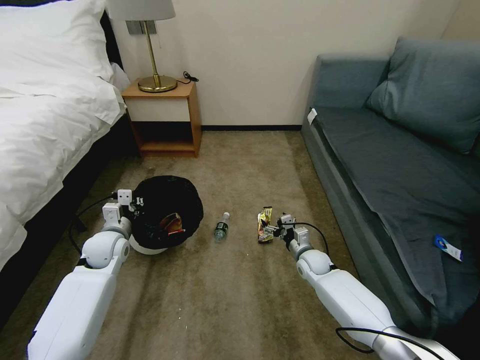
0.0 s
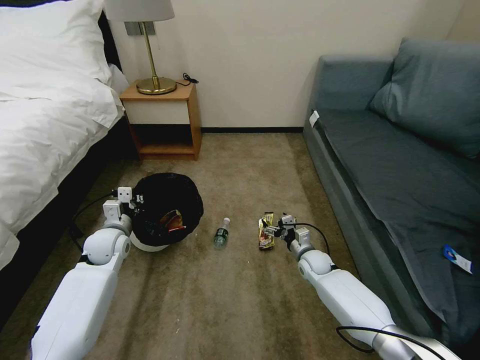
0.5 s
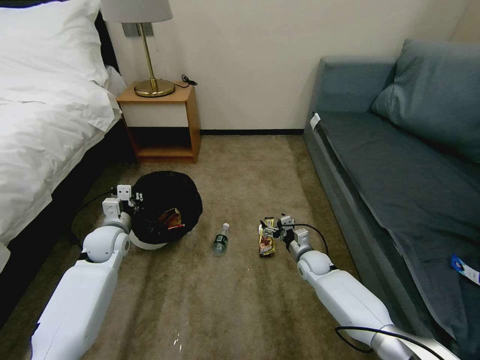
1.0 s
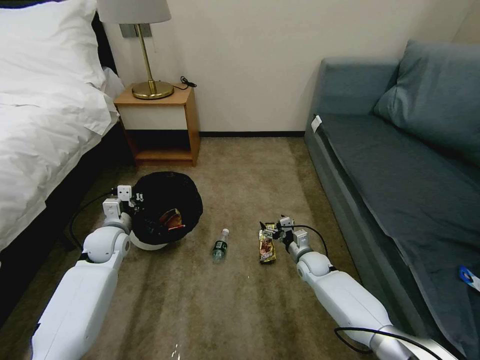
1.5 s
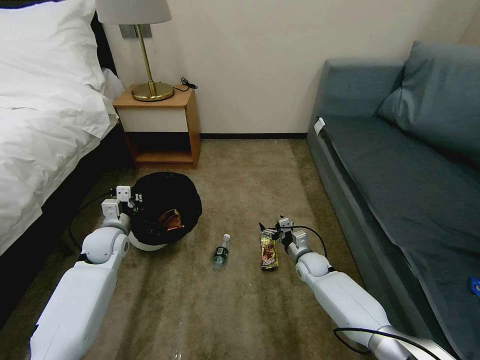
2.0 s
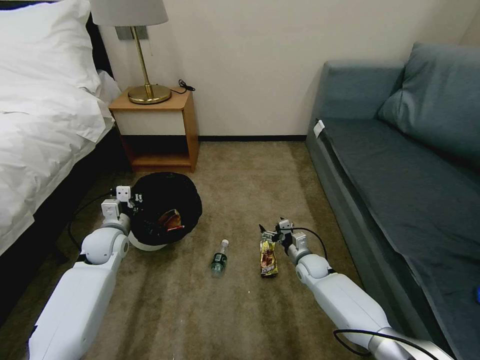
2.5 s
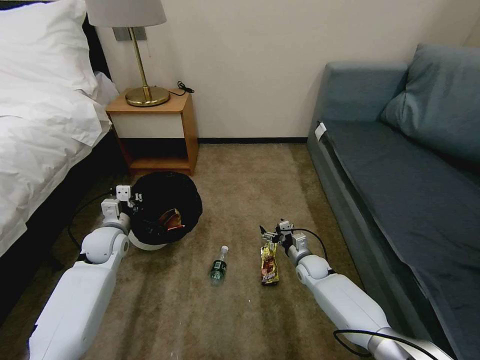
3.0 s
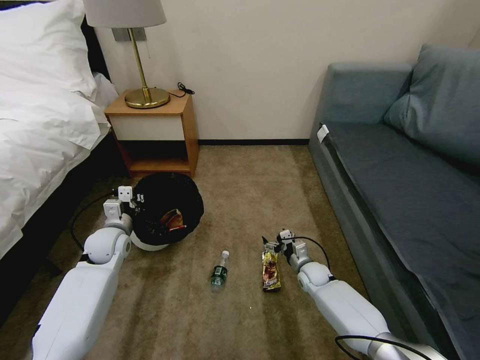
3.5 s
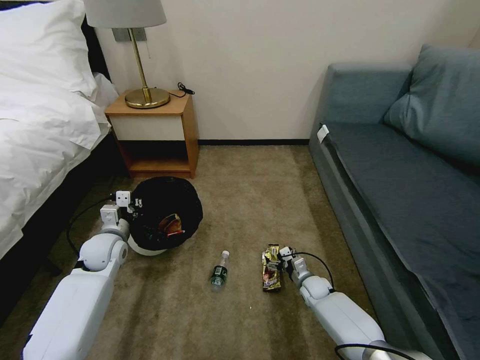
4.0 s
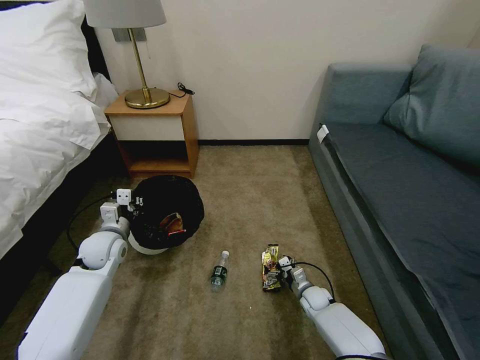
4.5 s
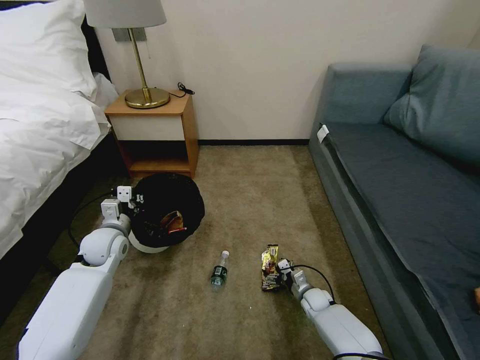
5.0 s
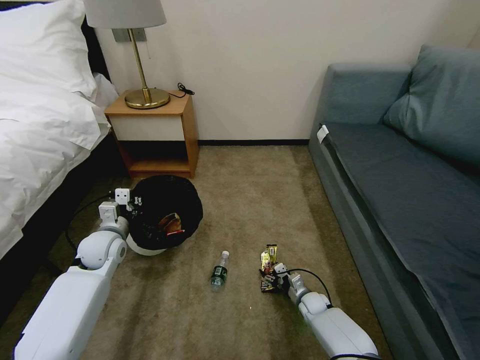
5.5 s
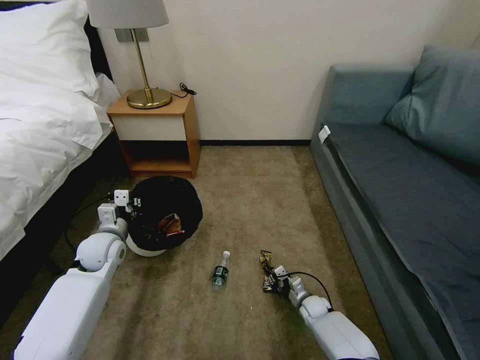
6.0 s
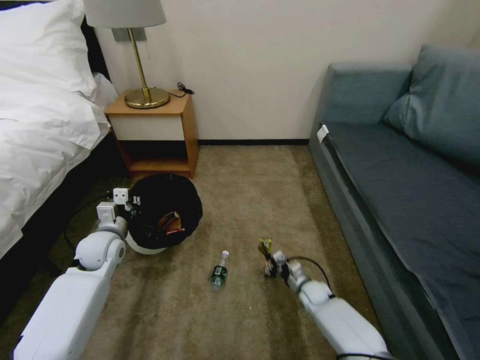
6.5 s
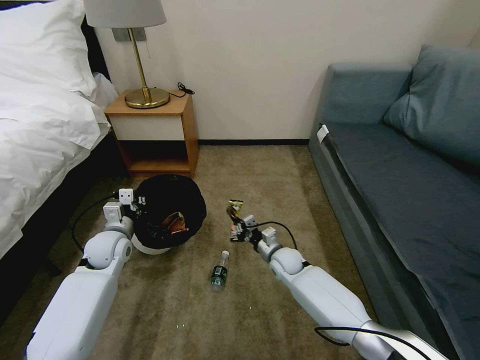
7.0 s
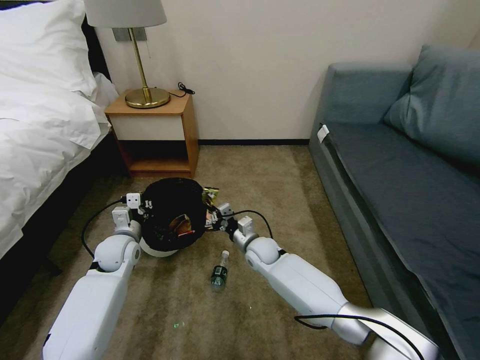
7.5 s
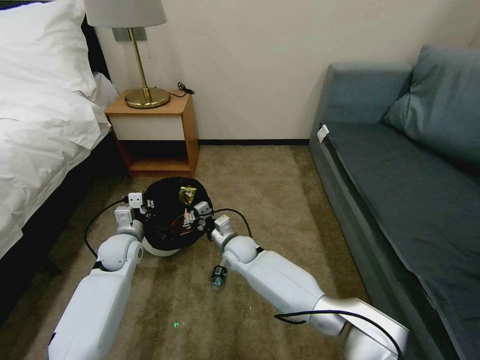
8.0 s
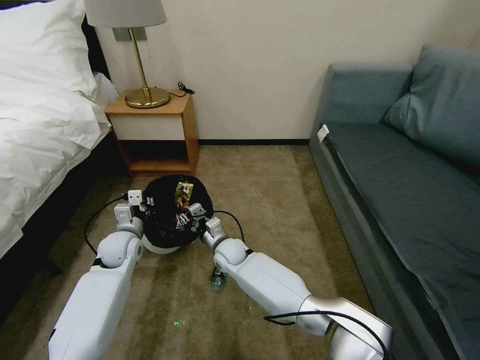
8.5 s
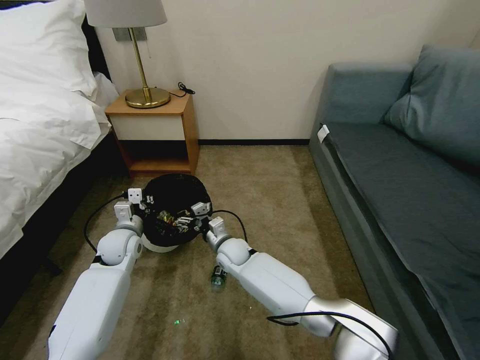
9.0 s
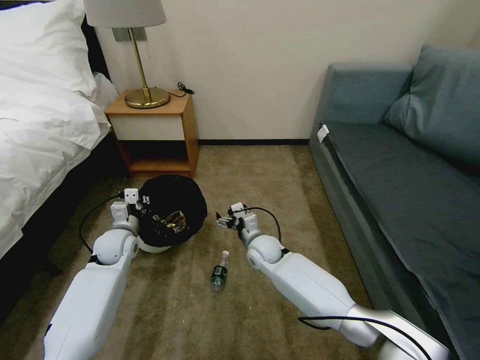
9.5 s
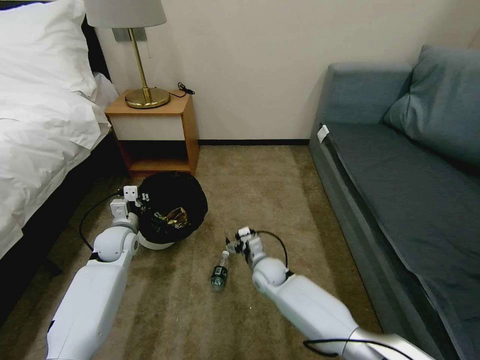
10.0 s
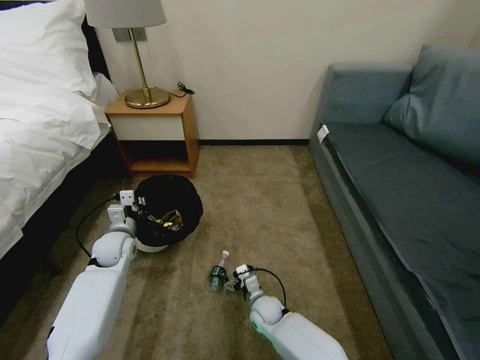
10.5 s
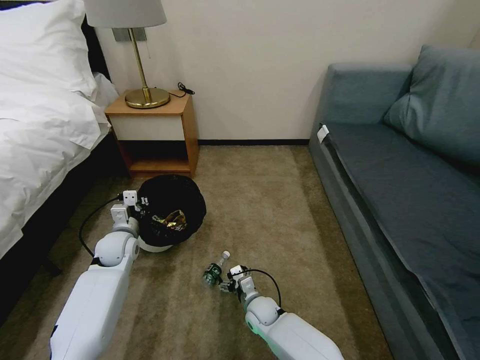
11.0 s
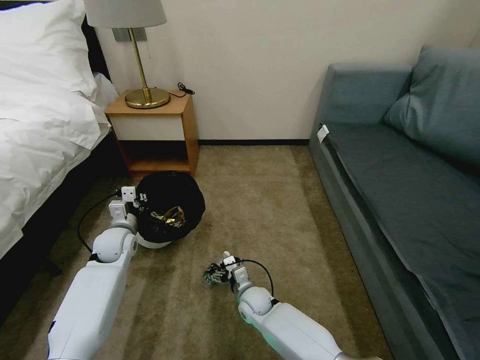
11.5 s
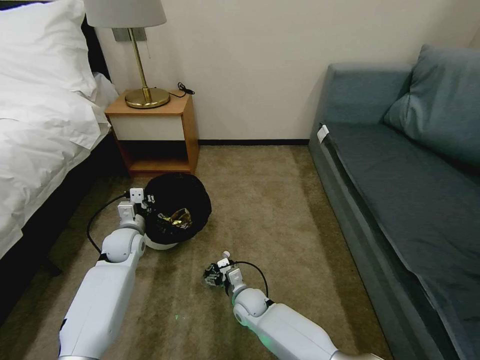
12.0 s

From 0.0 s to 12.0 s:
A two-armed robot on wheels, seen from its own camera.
Task of the whole recording: Pick up the trash bin, then pick up the garbage on the floor and place it into the trash bin.
From 0.0 s to 2.0 s: The grippers make only small movements.
From 2.0 s to 4.0 s: The right gripper shifts approximately 10 cm downward.
From 4.0 s to 6.0 s: The right gripper shifts by about 5 cm, and closes up.
From 6.0 s to 8.0 s: The right gripper moves to the left and upward, roughly 35 cm.
From 8.0 s to 10.0 s: The right gripper shifts some 10 cm to the right, and opens its fingers.
From 10.0 s to 12.0 s: The right gripper goes about 10 cm backward, downward and to the left.

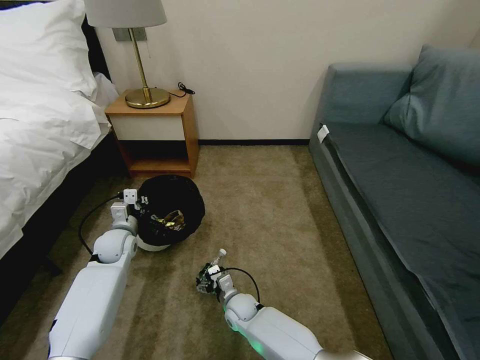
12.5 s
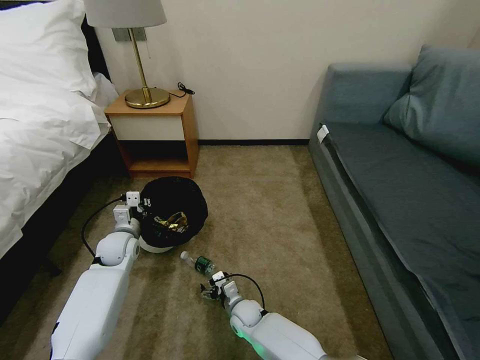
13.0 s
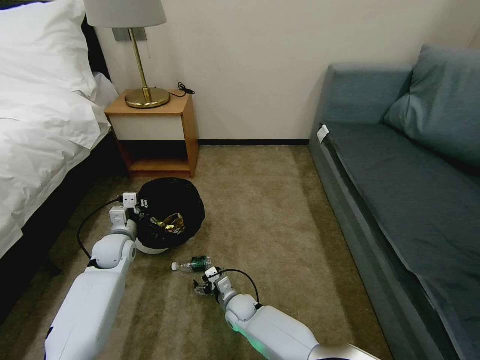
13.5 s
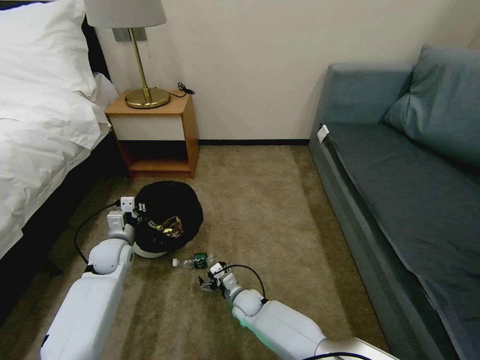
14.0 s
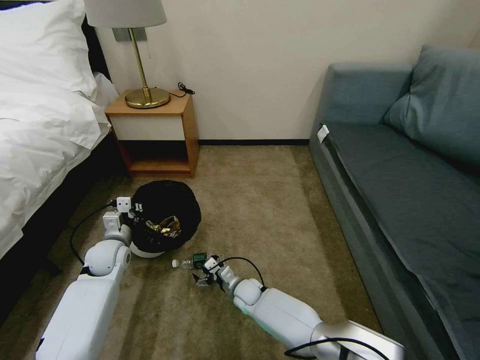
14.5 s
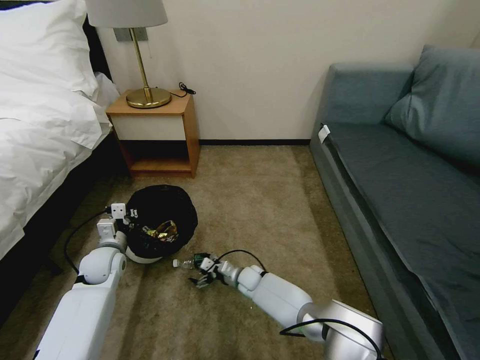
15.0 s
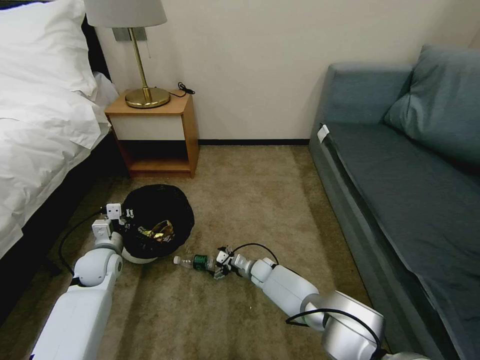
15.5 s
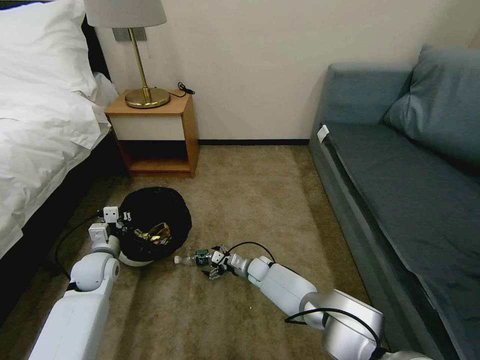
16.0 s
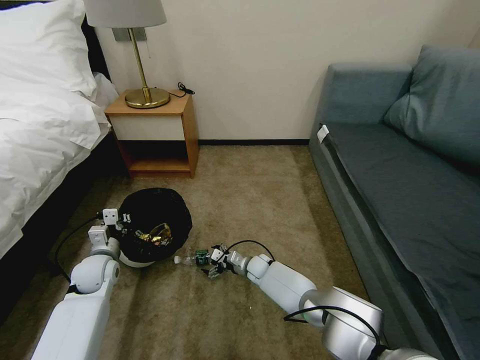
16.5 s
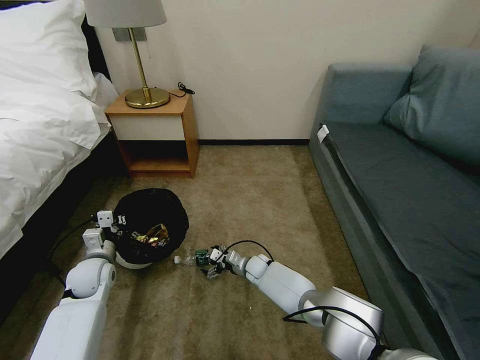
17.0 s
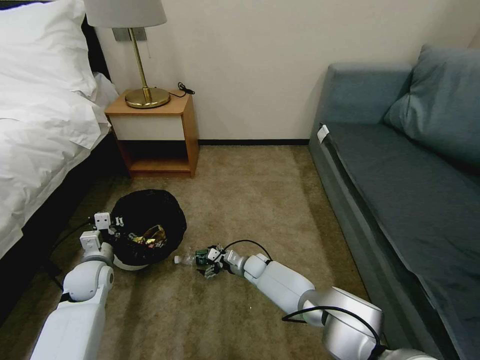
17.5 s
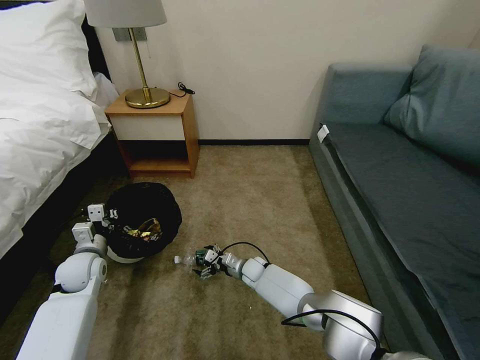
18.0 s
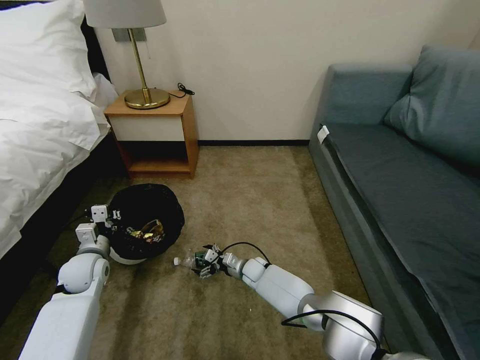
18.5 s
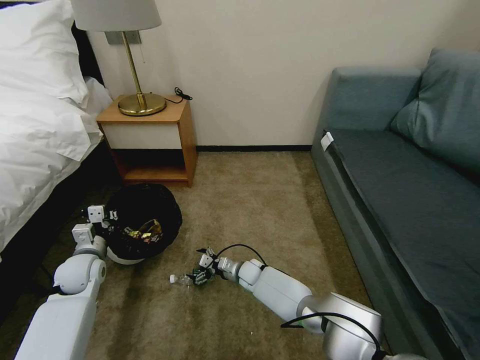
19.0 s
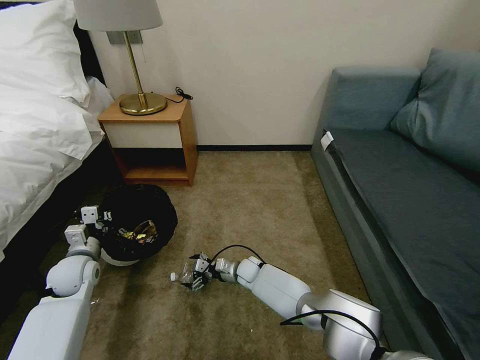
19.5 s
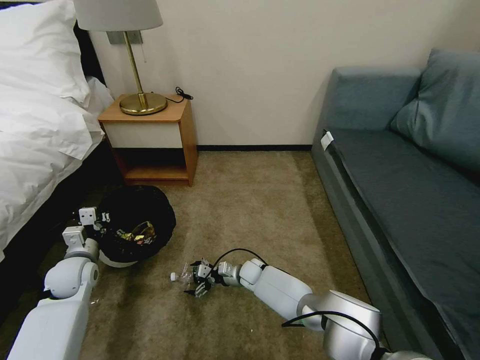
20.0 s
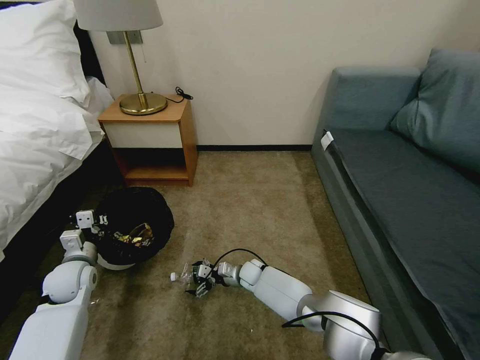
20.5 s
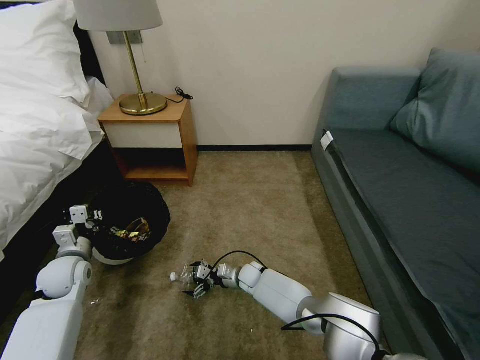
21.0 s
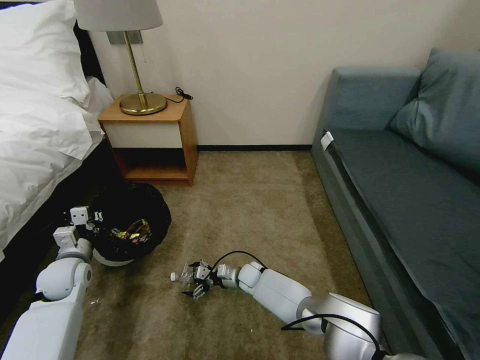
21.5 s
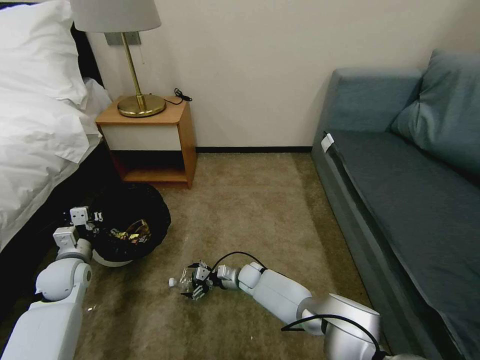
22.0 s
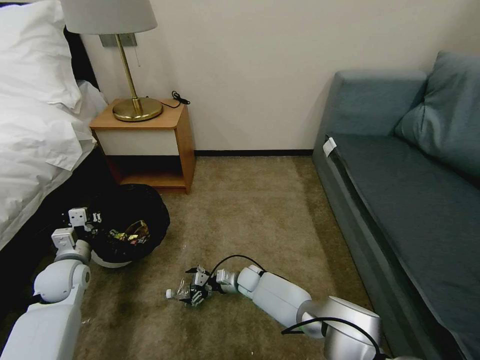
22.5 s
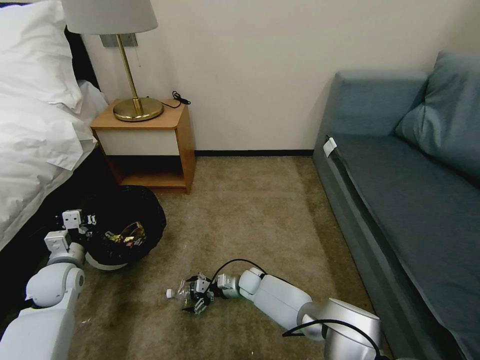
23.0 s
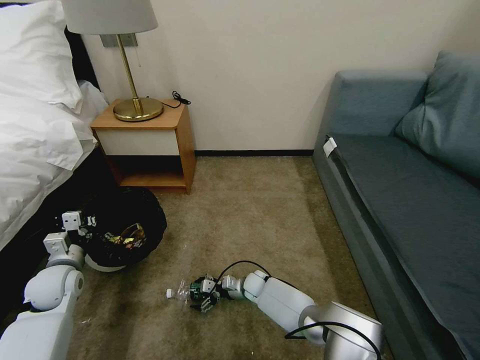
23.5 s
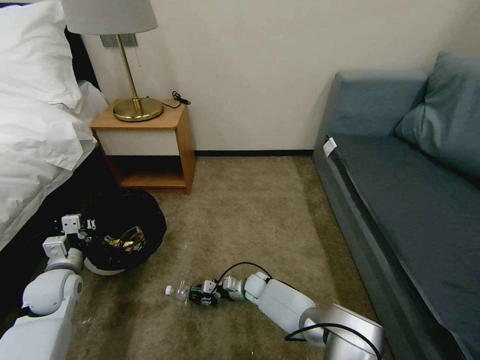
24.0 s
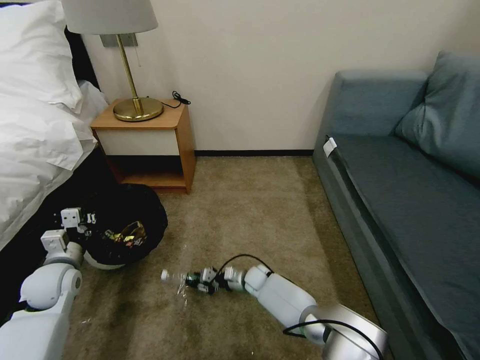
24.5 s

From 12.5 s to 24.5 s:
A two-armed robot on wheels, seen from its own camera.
Task of the whole recording: Pick up the trash bin, then pick up the garbage on the floor and place it into the trash bin.
From 12.5 s to 14.5 s: The right gripper moves roughly 5 cm.
From 14.5 s to 16.5 s: The right gripper moves forward, roughly 10 cm.
From 16.5 s to 20.5 s: There are only small adjustments of the grippers.
From 20.5 s to 22.5 s: There are only small adjustments of the grippers.
From 22.5 s to 24.5 s: The right gripper closes its fingers.

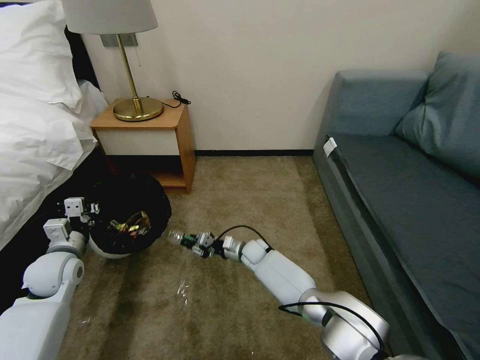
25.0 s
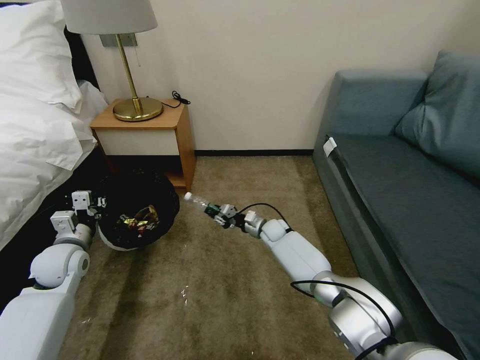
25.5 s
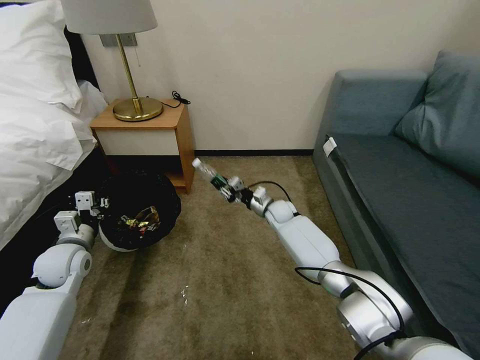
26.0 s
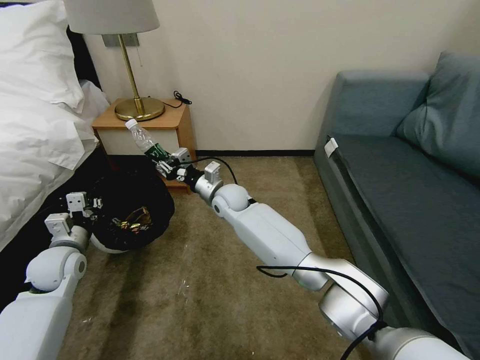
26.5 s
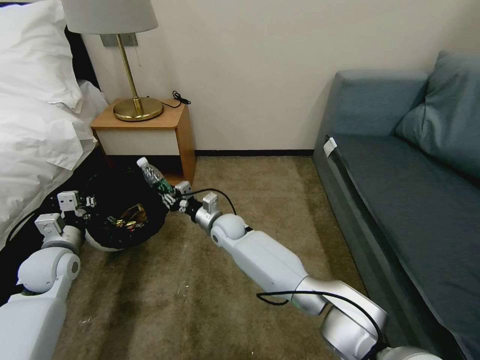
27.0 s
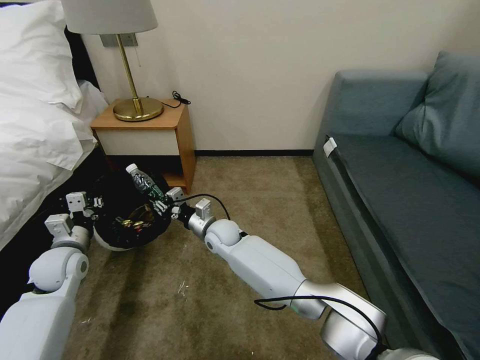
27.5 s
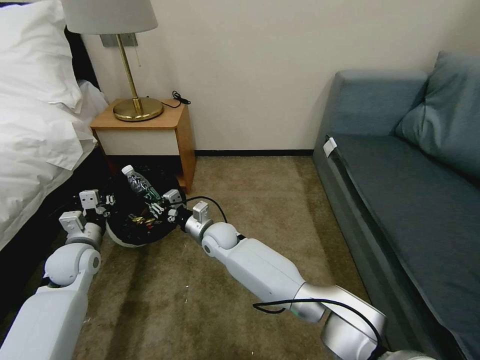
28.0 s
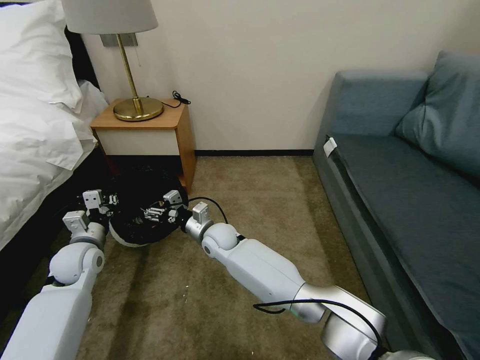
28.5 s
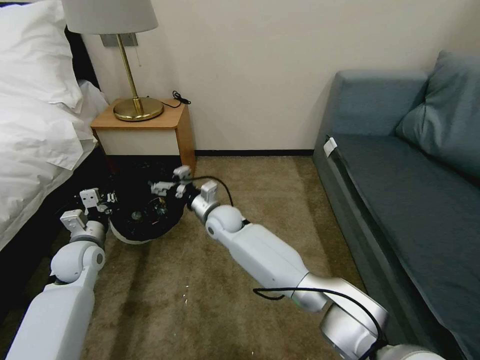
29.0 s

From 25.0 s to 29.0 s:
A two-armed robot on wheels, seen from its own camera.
Task of the whole recording: Pick up the trash bin, then pick up the garbage on the floor and place it into the trash bin.
From 25.0 s to 27.0 s: The right gripper heads upward and to the left, covering about 15 cm.
From 27.0 s to 29.0 s: The right gripper shifts some 5 cm upward, and opens up. Meanwhile the left gripper shifts by some 5 cm.
